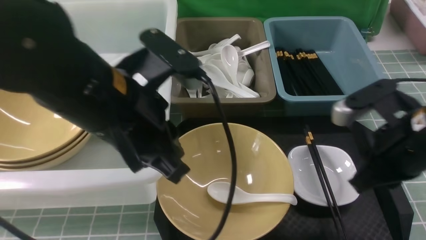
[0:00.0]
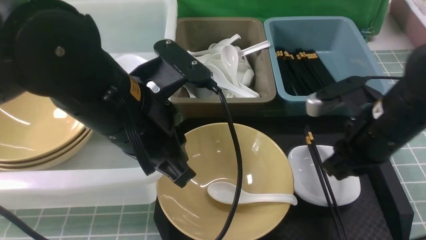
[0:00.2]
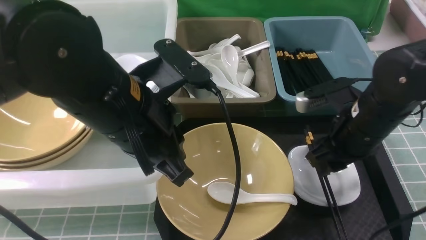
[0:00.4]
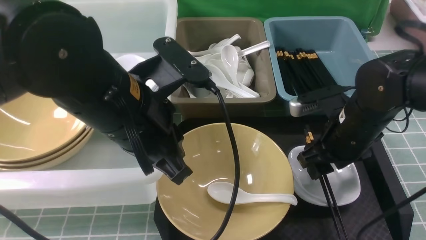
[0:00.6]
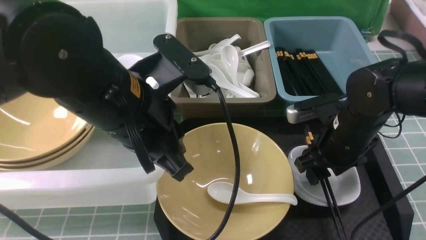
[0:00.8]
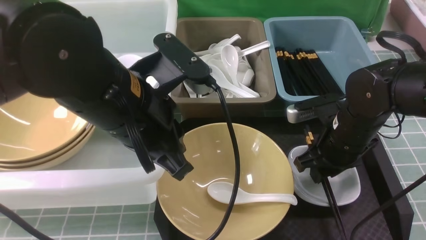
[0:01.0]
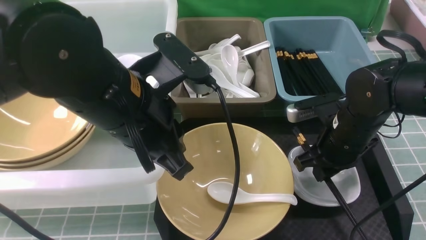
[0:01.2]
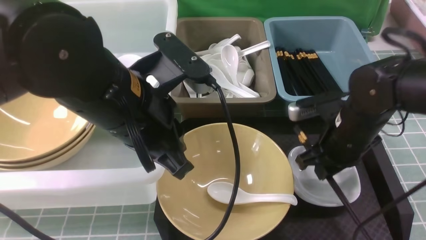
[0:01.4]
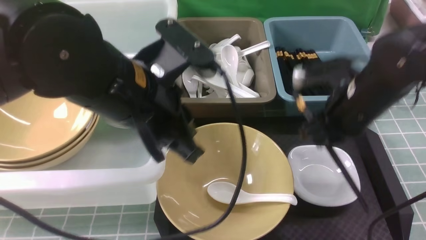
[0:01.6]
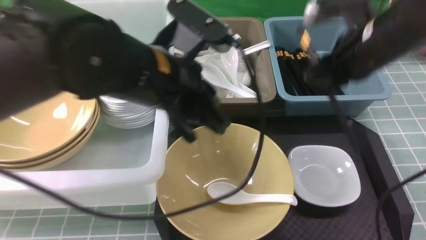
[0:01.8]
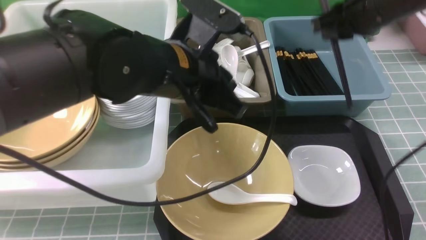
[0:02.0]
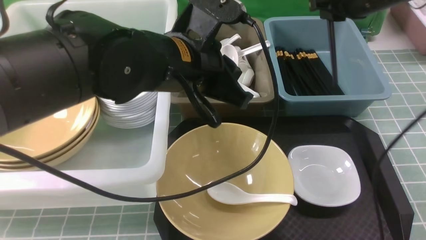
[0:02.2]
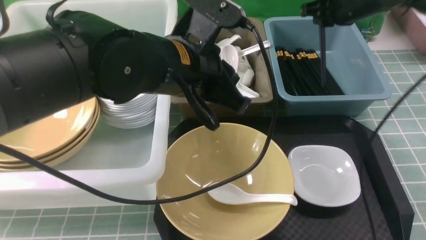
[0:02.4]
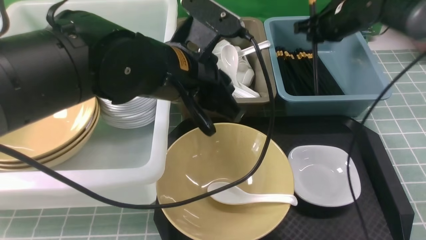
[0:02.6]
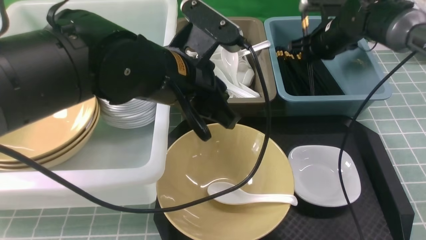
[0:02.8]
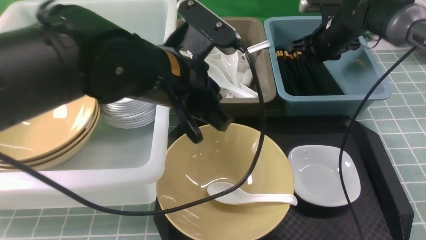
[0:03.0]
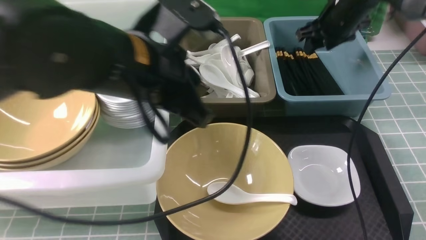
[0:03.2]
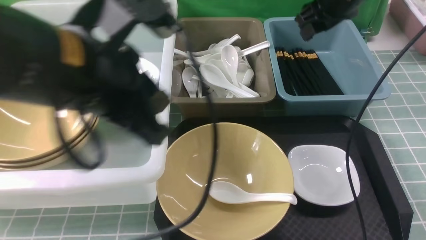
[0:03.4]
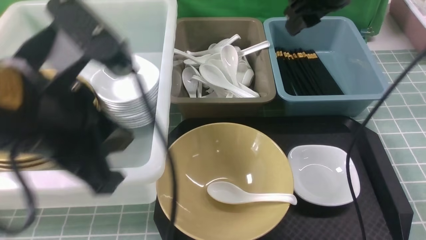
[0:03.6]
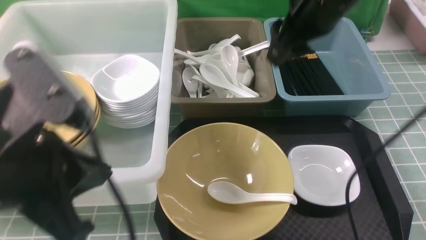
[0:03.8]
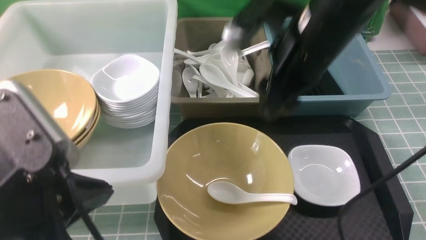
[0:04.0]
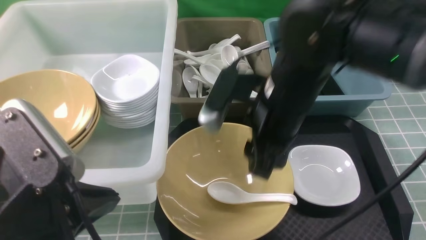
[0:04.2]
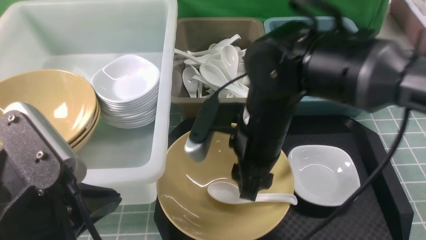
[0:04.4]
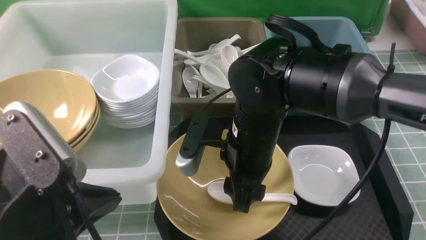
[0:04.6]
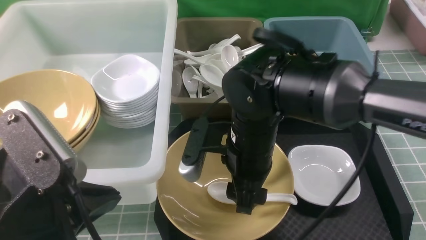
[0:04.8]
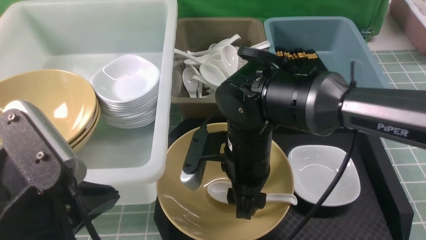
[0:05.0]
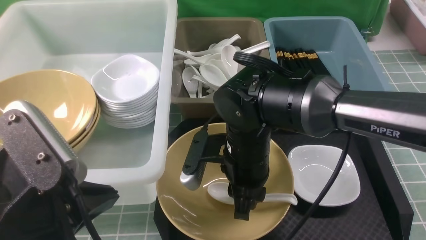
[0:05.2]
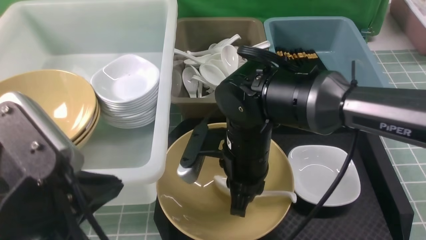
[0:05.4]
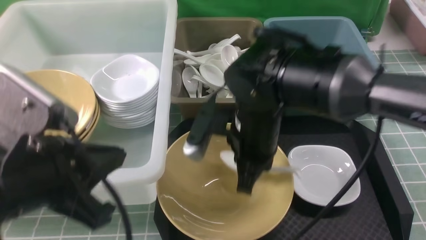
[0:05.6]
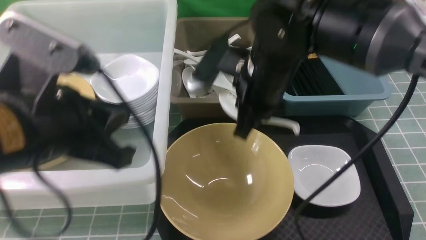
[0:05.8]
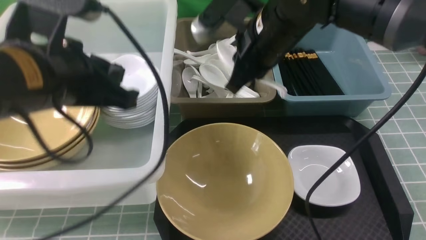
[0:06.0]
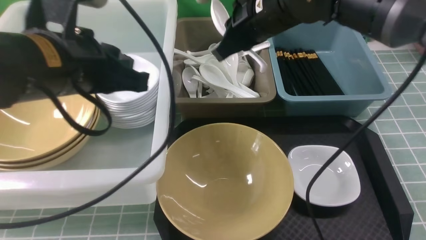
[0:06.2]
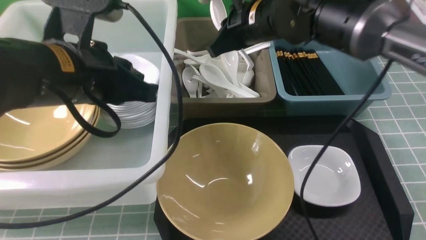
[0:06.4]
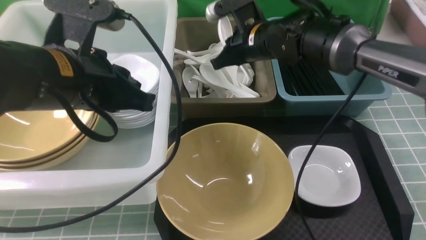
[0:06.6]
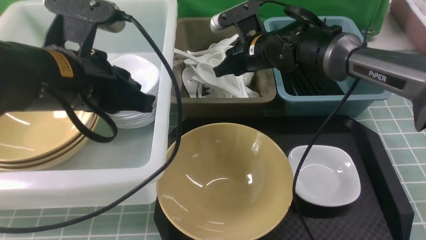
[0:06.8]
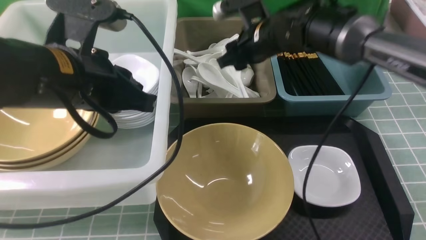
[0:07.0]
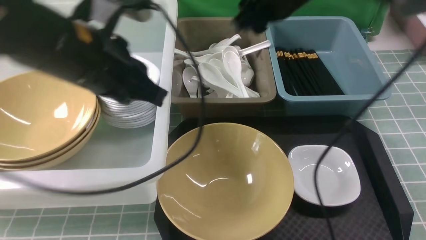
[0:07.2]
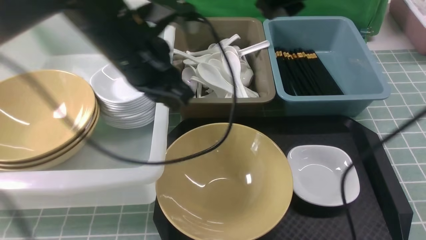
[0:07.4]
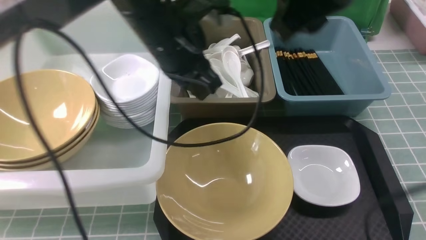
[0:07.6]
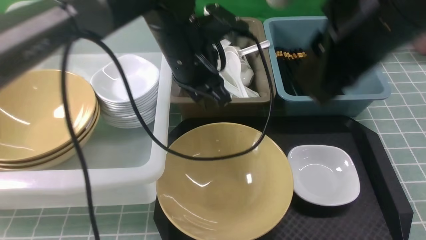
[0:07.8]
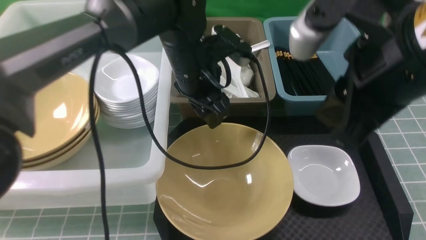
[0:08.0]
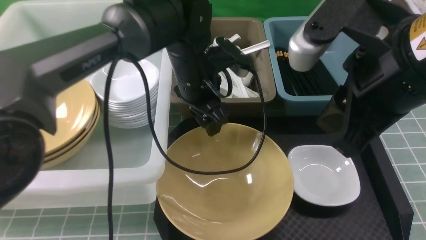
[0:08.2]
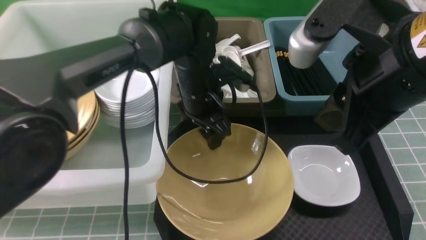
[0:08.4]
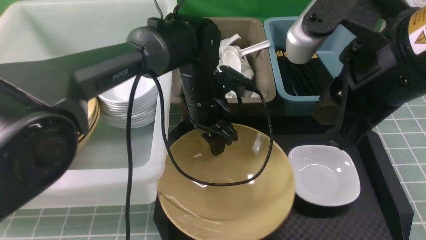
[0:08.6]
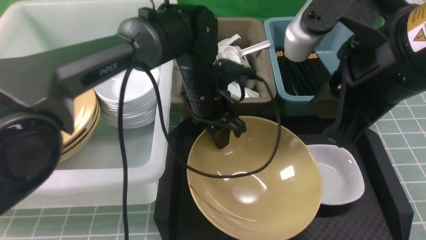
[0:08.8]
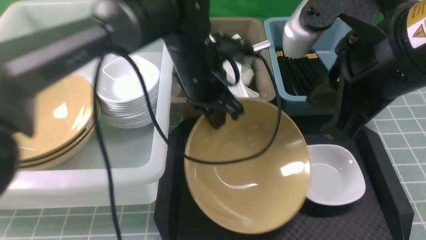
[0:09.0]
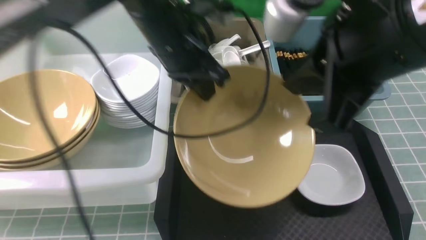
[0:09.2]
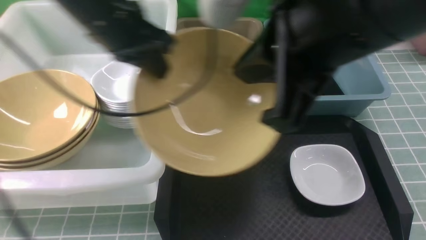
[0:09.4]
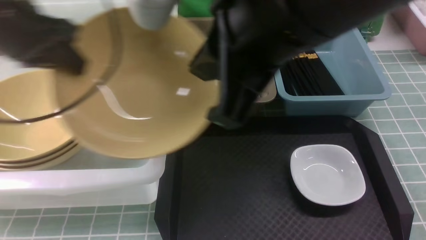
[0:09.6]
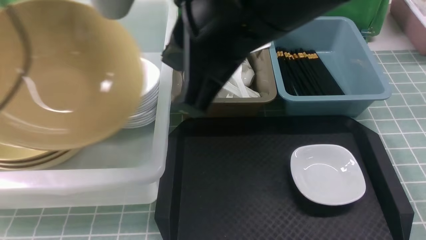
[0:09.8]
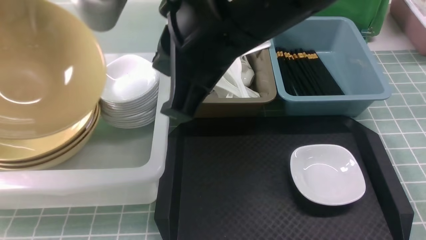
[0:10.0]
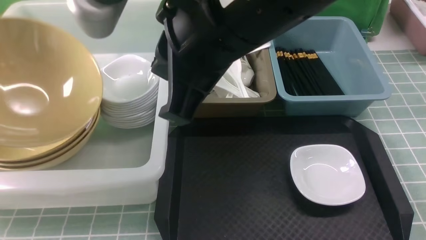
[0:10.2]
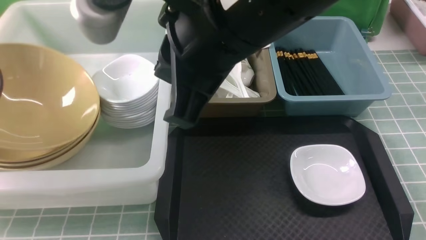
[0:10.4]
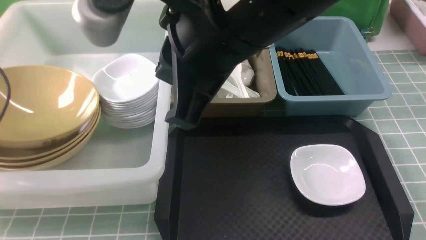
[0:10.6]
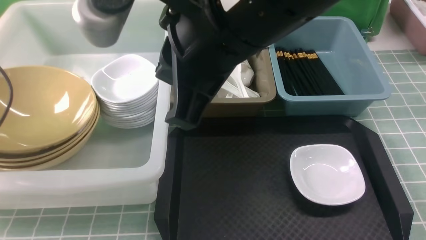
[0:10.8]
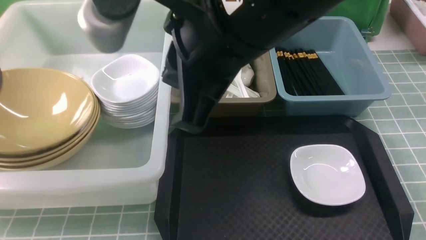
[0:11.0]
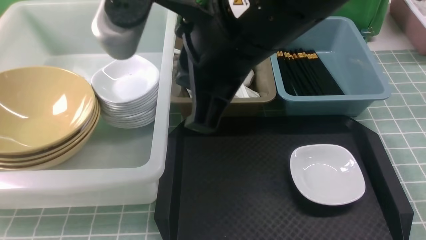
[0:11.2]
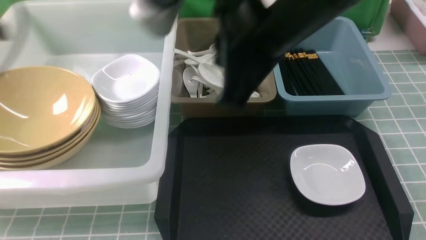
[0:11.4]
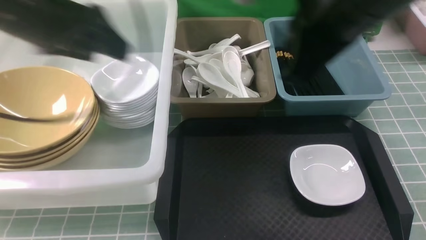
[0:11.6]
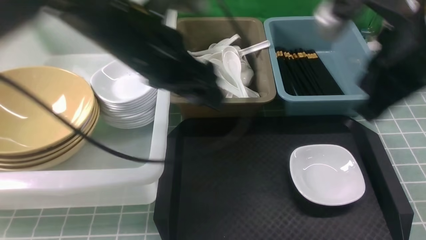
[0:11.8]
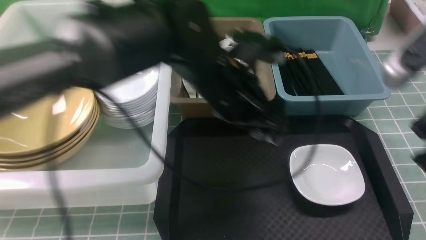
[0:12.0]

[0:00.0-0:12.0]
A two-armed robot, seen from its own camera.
Task of the whole recording: on blue table put chopsticks spoon bowls plates into blue grey white boxes.
Step, 0:01.6 to 0:03.0: use the right arm to put the chopsticks into the small storage box on the right.
Step, 0:03.2 to 0:05.4: use the right arm to grab the soup spoon in the middle.
Step, 0:05.8 to 0:07.0: use the right arm to put the soup spoon into the small storage box in the middle.
Step, 0:07.2 to 0:09.0: use the left arm to grab the yellow noodle bowl on the left.
Step, 0:09.2 to 0:11.2: use the left arm to put the noodle bowl into the large storage box on the left.
0:00.0 to 0:01.6: The right gripper moves forward, approximately 10 cm, and opens, then closes again.
0:01.6 to 0:03.0: The right gripper is displaced forward by about 20 cm.
0:03.0 to 0:04.4: Both grippers move backward and to the left, some 25 cm.
0:04.4 to 0:06.0: The two grippers go roughly 5 cm forward. The right gripper closes up.
0:06.0 to 0:07.6: The right gripper is displaced upward, to the right and backward by roughly 15 cm, and opens up. The left gripper shifts approximately 15 cm forward and to the right.
0:07.6 to 0:09.0: The right gripper goes some 10 cm backward, and closes up, while the left gripper shifts approximately 5 cm downward, and opens, then closes once more.
0:09.0 to 0:10.4: The left gripper goes approximately 35 cm to the left, while the right gripper moves to the left, about 15 cm.
0:10.4 to 0:12.0: The right gripper heads to the right, covering approximately 20 cm. Meanwhile the left gripper is displaced to the right by about 35 cm, and opens its fingers.

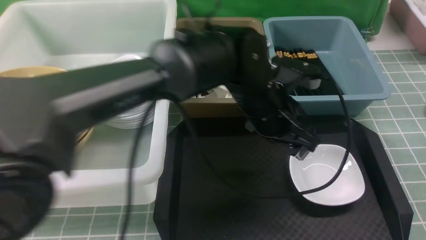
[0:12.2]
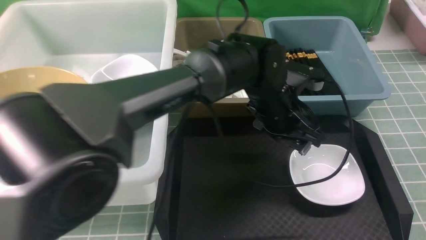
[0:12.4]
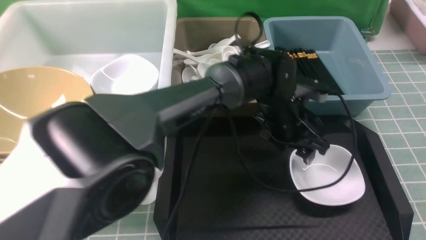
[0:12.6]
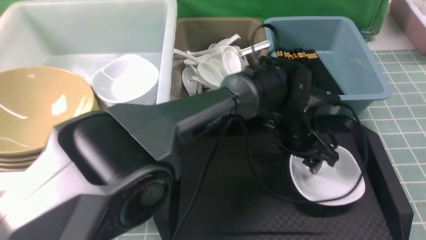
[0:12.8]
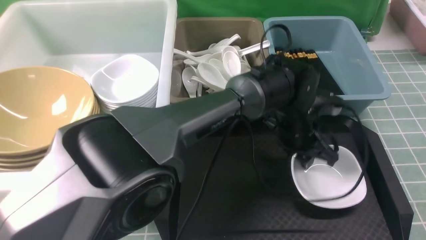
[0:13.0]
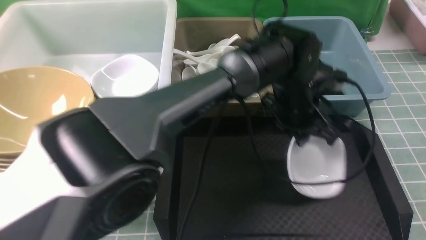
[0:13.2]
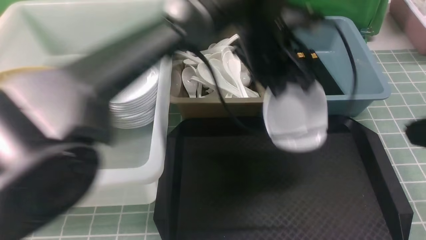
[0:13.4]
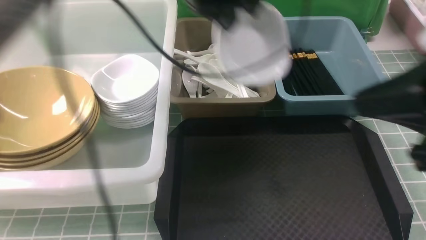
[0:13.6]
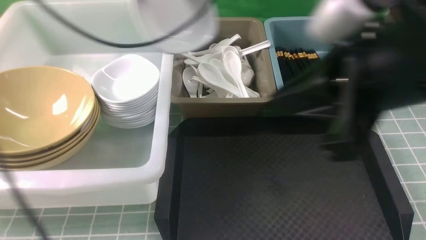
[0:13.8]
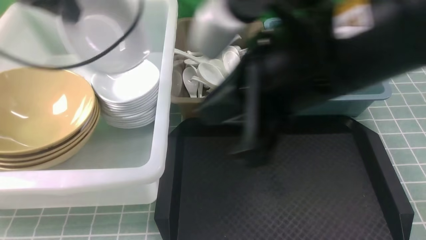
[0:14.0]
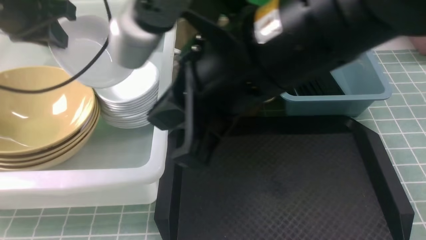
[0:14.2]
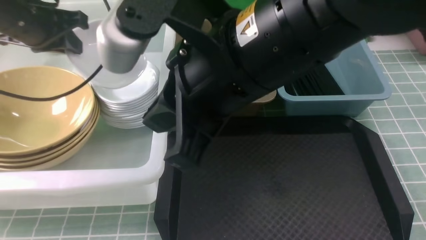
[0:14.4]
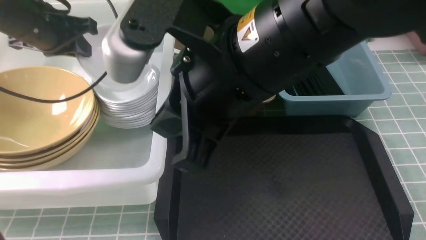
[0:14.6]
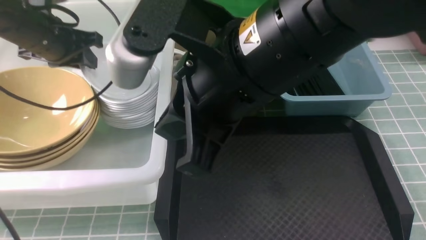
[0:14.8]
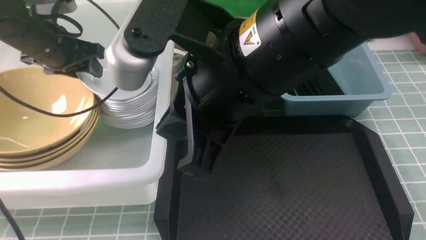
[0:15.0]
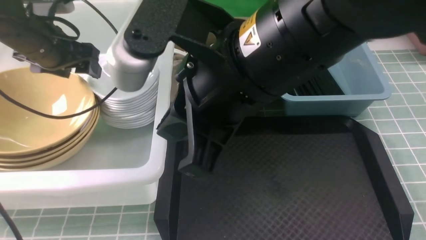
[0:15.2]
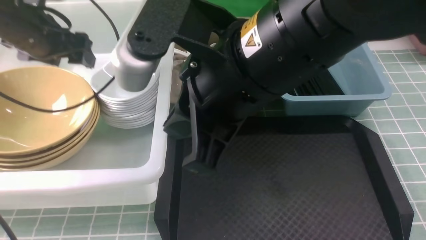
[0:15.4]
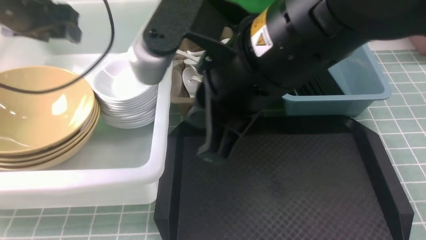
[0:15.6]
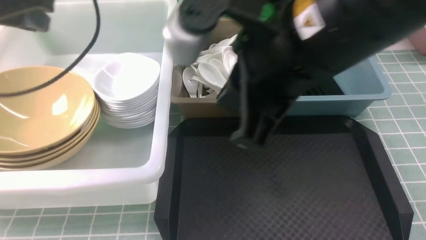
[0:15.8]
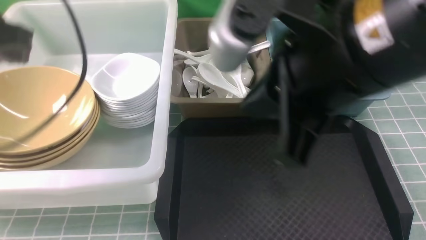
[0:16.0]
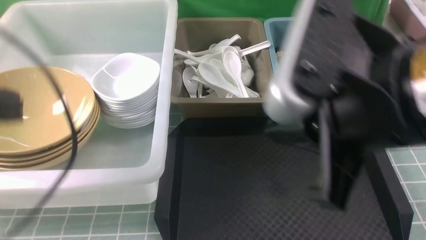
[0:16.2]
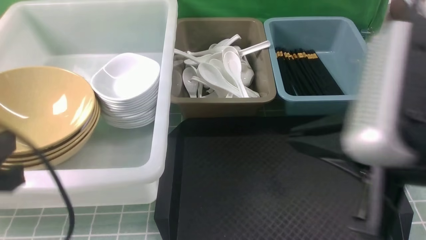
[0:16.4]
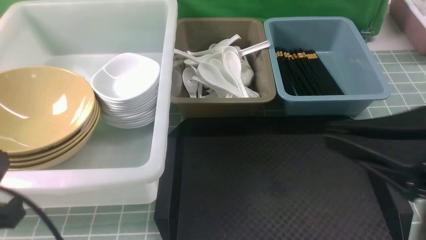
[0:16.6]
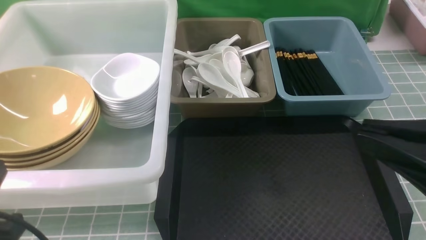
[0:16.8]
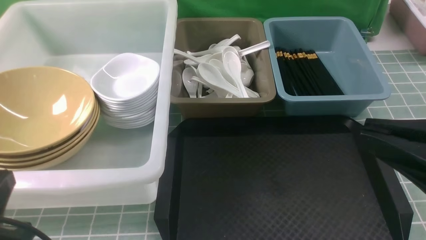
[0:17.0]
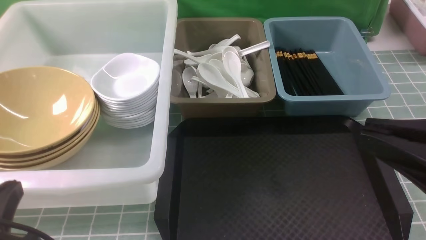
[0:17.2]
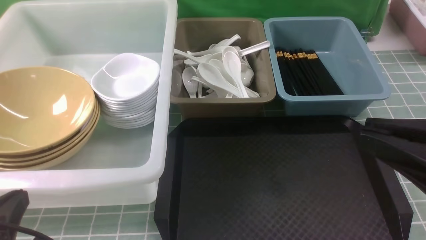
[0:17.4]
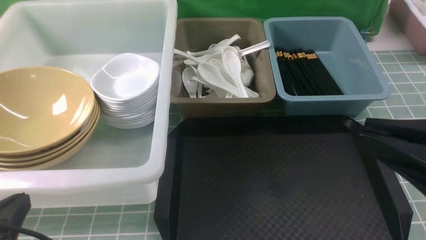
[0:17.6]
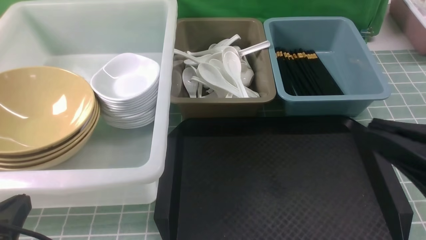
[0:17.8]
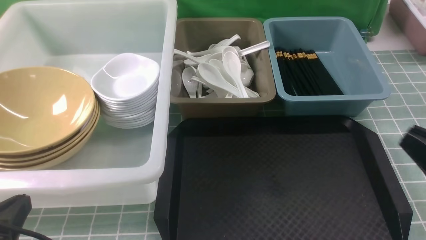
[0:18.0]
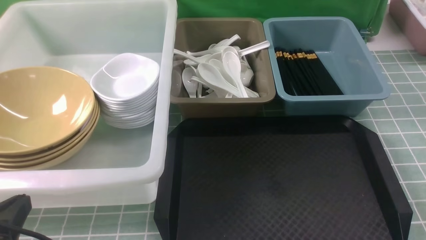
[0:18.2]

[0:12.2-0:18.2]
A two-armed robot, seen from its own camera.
Task of the whole recording: on blue table put chopsticks spoon bowls plates into blue grey white boxes.
Step, 0:12.2 to 0:13.2: use the left arm to grab the plate.
Step, 0:13.4 to 0:15.2: use the left arm to put the plate into the large storage box on the left.
0:12.2 to 0:13.8: The left gripper moves upward and to the left, roughly 20 cm, and closes; the right gripper heads to the left, covering some 10 cm.
0:13.8 to 0:15.2: The right gripper is displaced to the left by approximately 15 cm, while the left gripper heads to the left and downward, covering roughly 20 cm, and opens up.
0:15.2 to 0:16.6: The left gripper goes some 30 cm backward, and closes; the right gripper shifts roughly 20 cm to the right and backward.
0:16.6 to 0:18.2: The left gripper goes about 5 cm downward, while the right gripper is displaced downward and to the right by approximately 15 cm.
